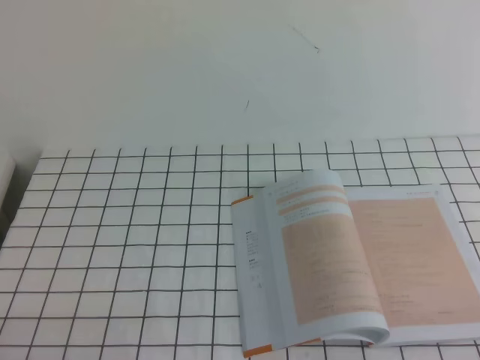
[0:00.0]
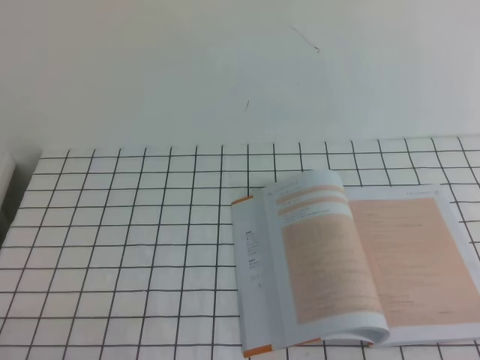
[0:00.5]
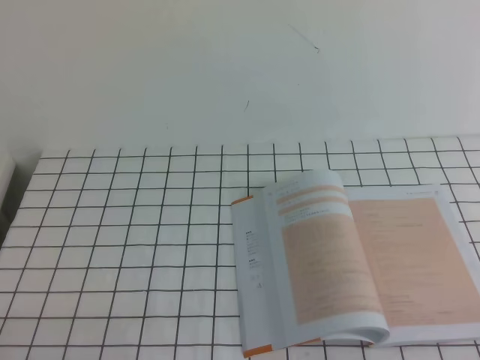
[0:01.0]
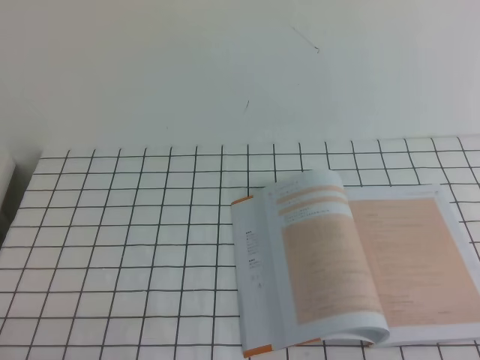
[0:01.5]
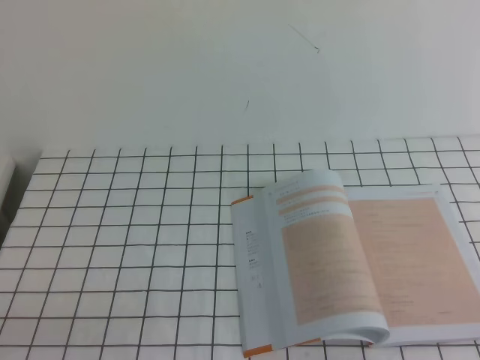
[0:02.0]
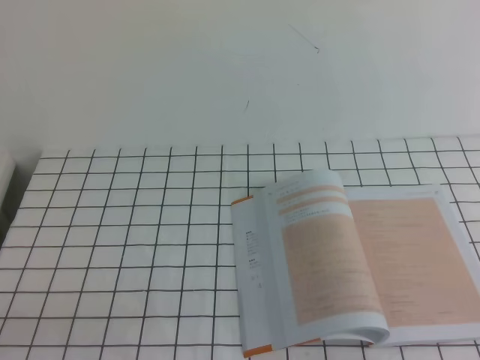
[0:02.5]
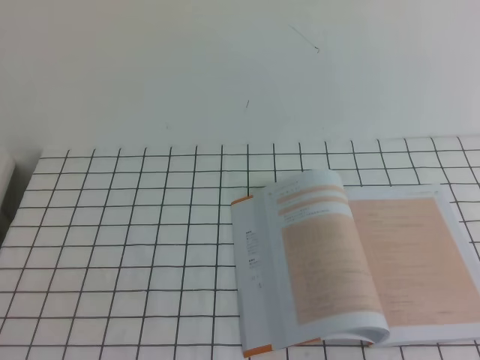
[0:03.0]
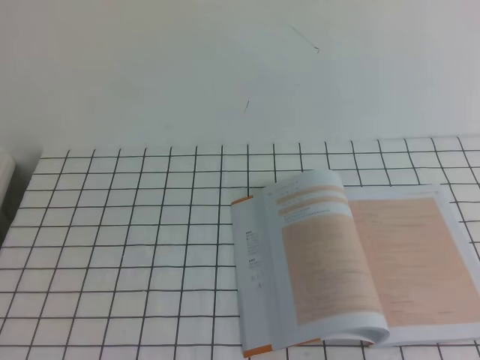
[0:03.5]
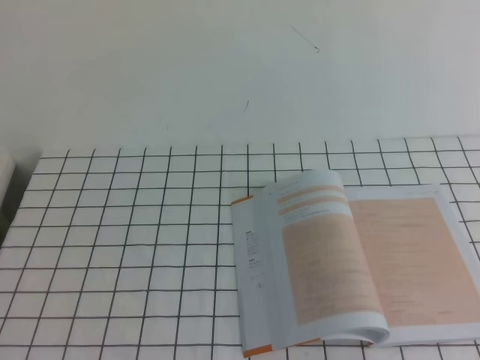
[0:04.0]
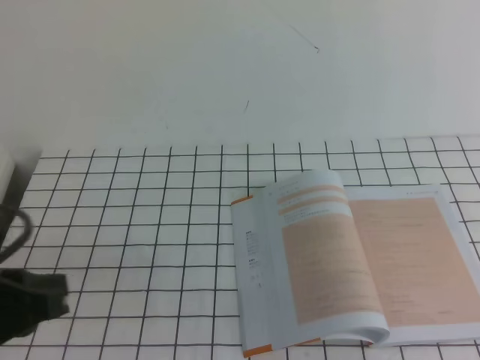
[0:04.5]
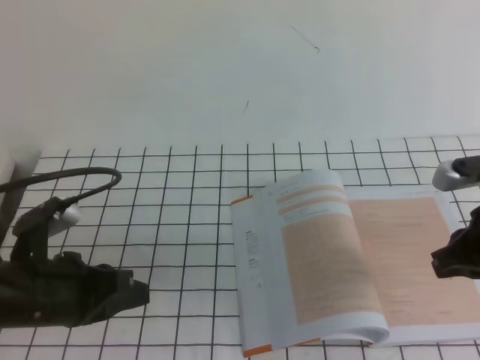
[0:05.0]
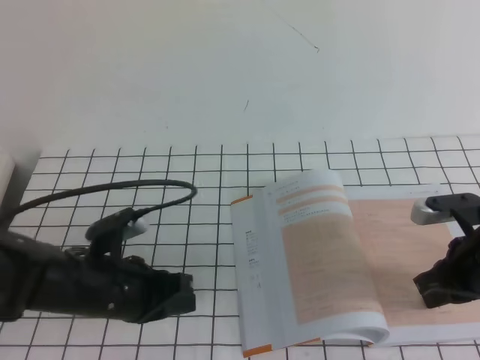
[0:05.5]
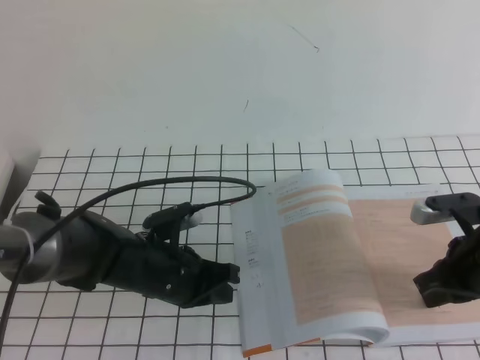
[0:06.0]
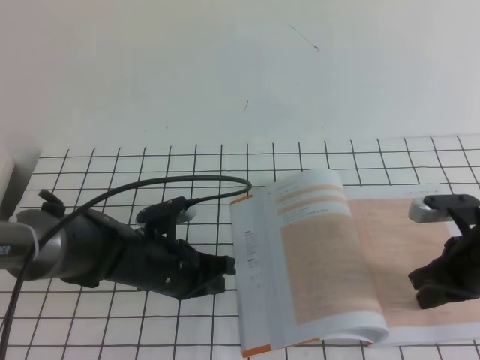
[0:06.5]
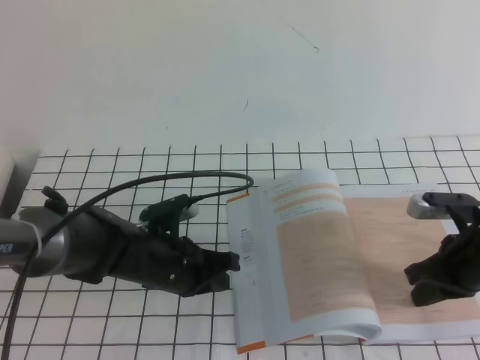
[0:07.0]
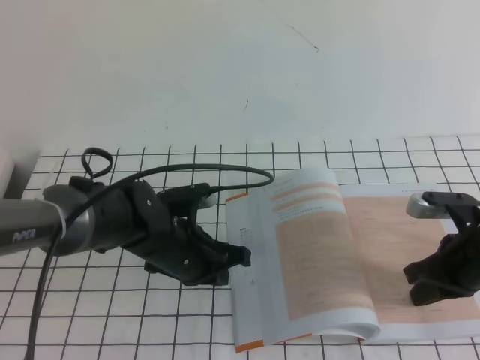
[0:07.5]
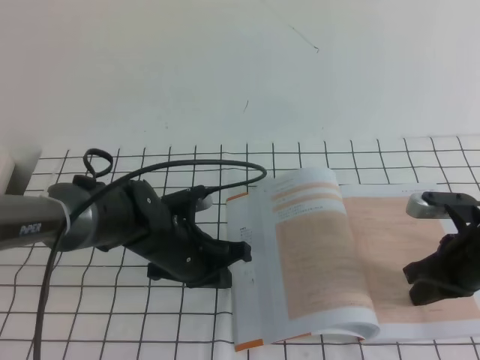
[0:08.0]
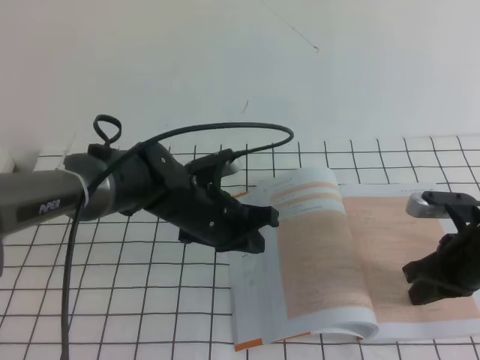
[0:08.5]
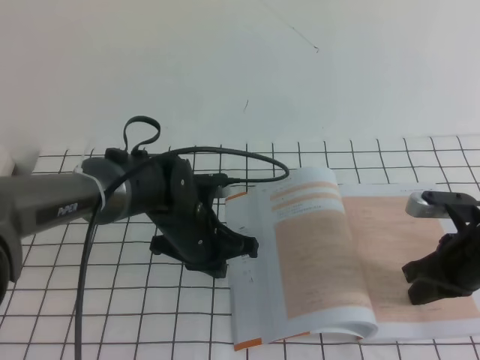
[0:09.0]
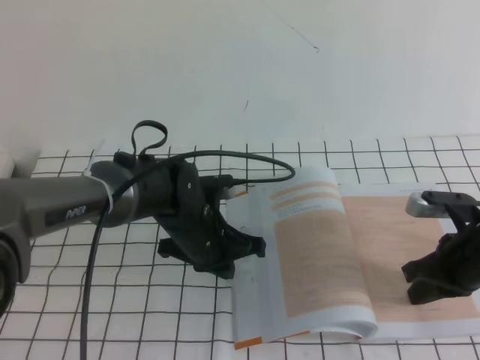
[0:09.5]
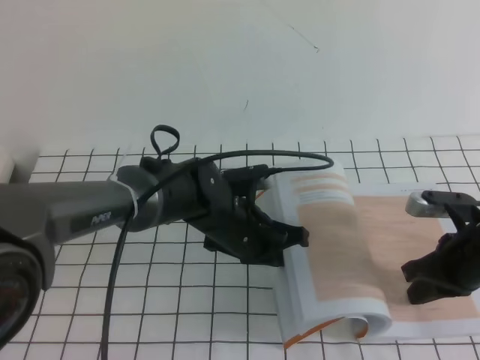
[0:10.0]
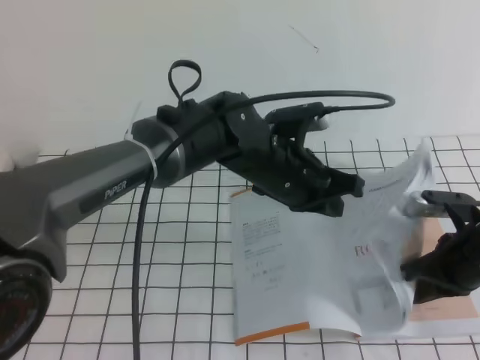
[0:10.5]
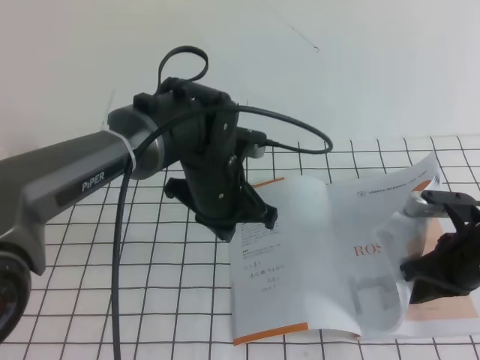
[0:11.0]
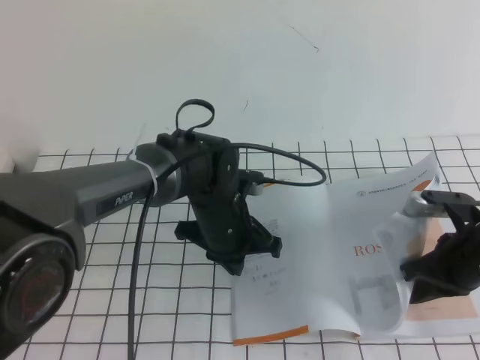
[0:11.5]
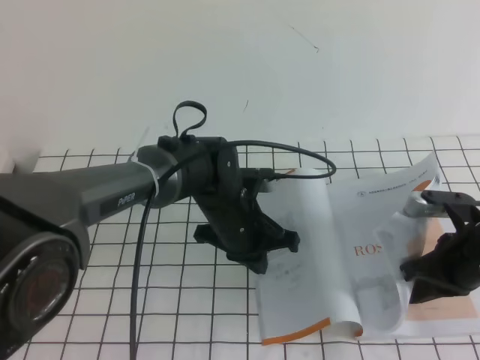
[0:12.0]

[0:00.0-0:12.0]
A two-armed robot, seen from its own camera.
Task of the whole recording: on the white tablecloth, hold the book with one hand and close it with the other.
0:04.0 to 0:06.0: The right gripper travels downward and forward by approximately 35 cm; the left gripper moves downward, forward and to the right, about 35 cm.
0:06.0 to 0:08.0: The grippers make only small movements.
0:08.0 to 0:10.0: The left gripper moves to the right, roughly 5 cm.
0:10.0 to 0:12.0: The left gripper goes upward and returns, about 5 cm each way.

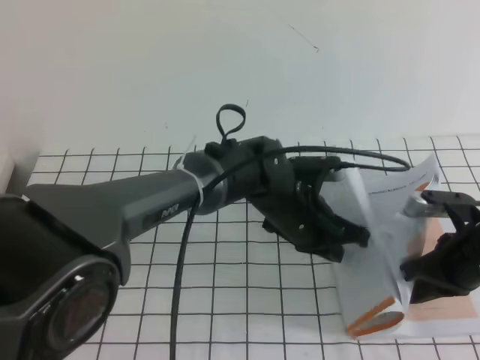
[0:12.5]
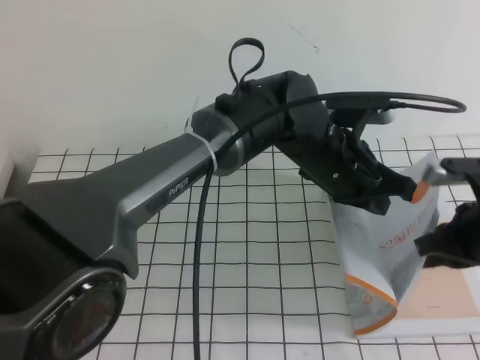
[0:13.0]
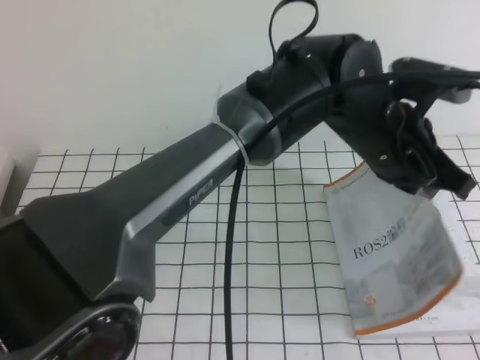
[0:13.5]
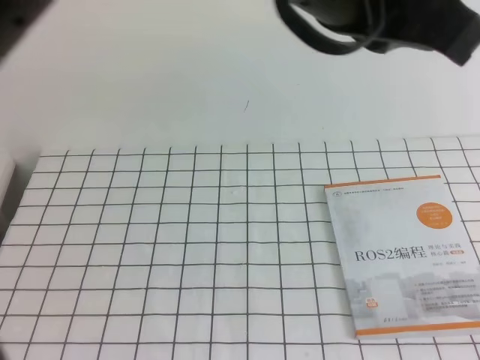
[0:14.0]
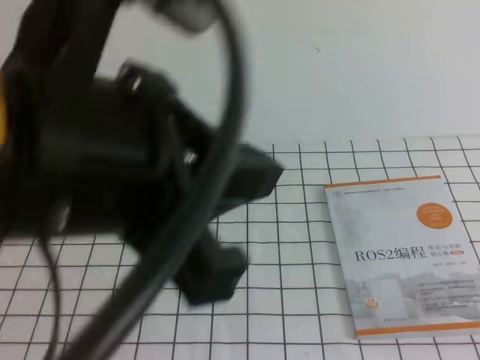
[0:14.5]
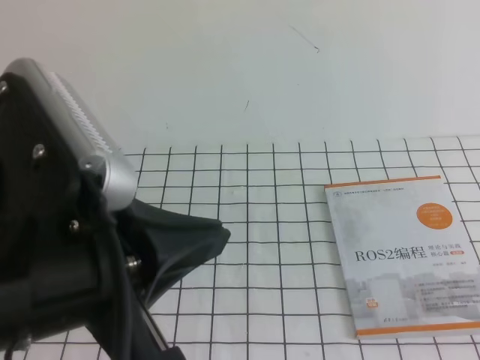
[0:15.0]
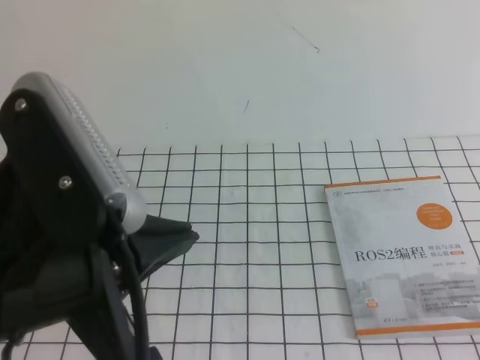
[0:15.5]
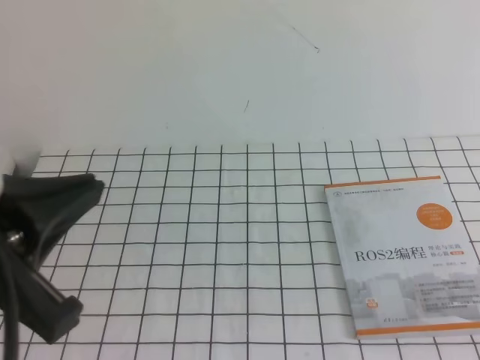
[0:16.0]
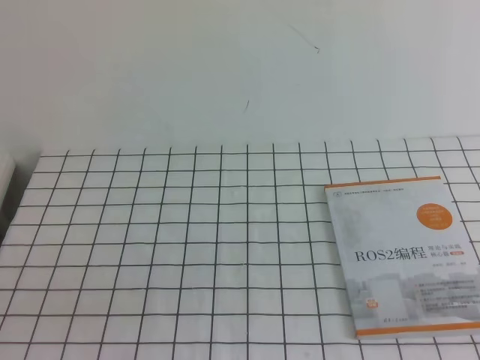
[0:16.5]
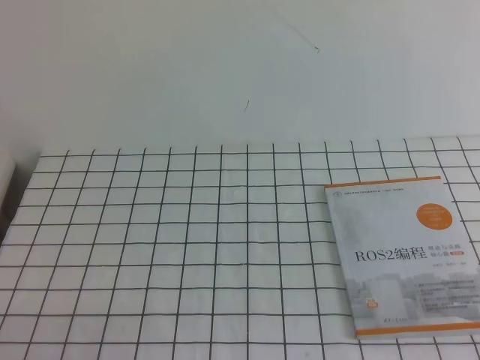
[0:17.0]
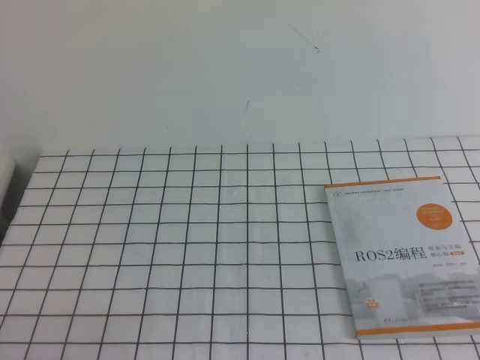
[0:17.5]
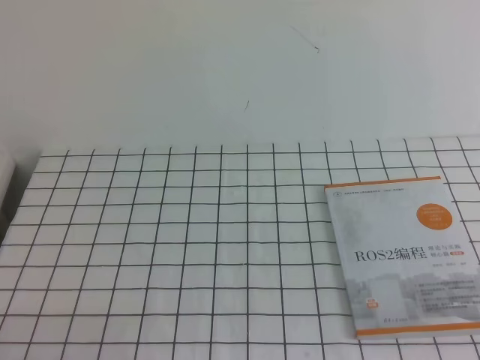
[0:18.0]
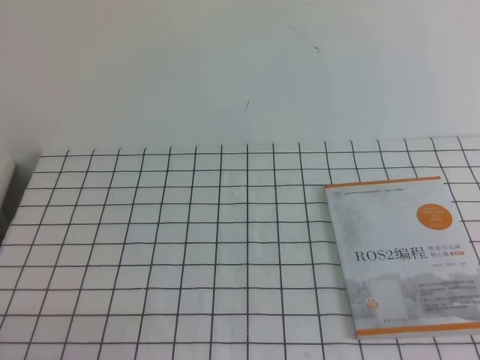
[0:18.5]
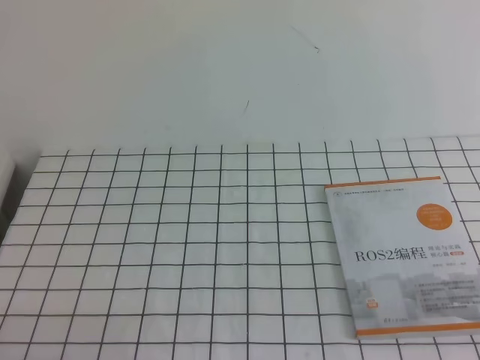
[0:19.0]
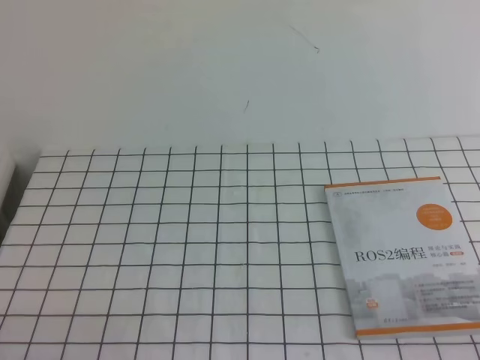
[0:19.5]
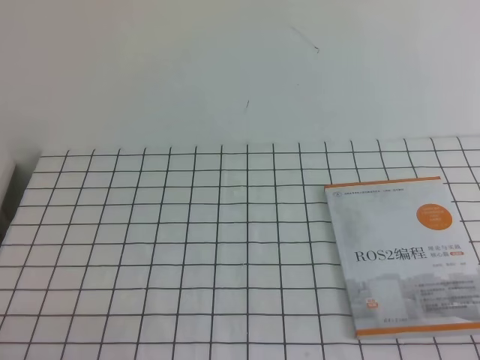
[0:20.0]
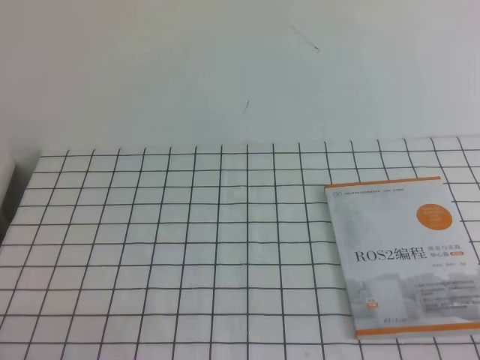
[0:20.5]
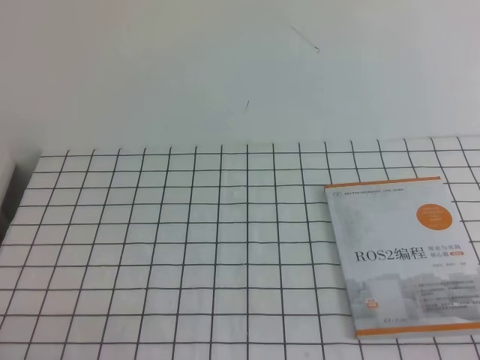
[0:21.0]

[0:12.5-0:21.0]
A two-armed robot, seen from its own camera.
Task of the whole recording: on the white tablecloth, hold the book with one hand and close it with the other.
Step, 0:12.5 to 0:21.0: Close the open book.
0:12.5 to 0:14.5: The right gripper moves backward and upward, about 40 cm. Meanwhile the left gripper shifts roughly 40 cm upward, backward and to the left.
0:14.5 to 0:16.5: The left gripper is displaced downward and to the left by some 25 cm.

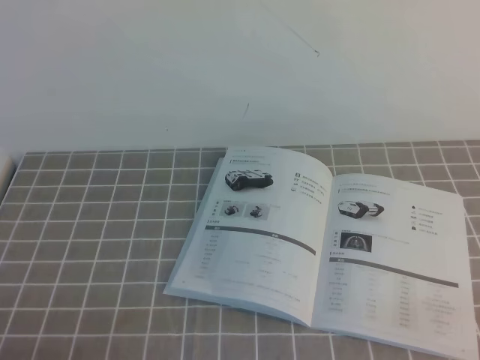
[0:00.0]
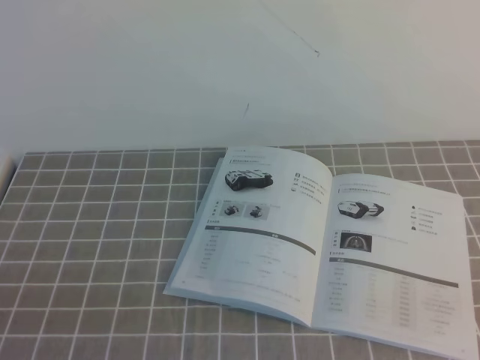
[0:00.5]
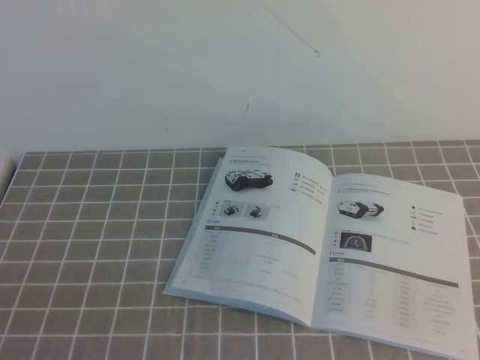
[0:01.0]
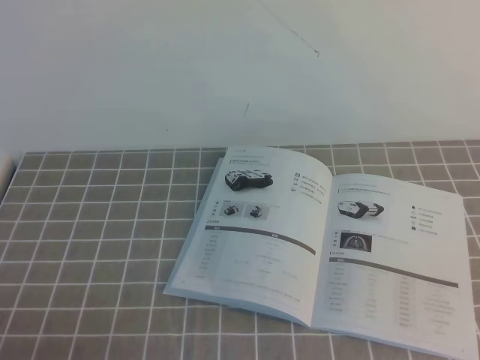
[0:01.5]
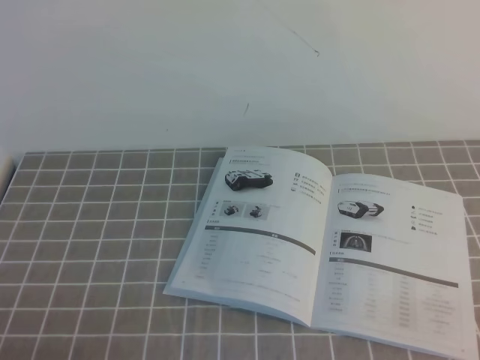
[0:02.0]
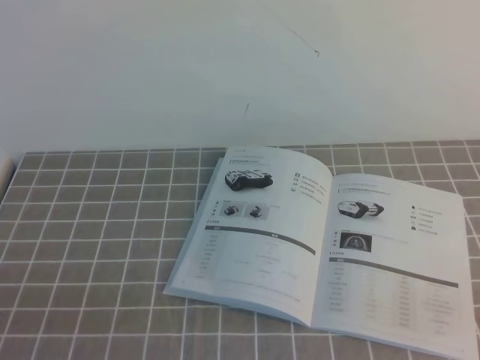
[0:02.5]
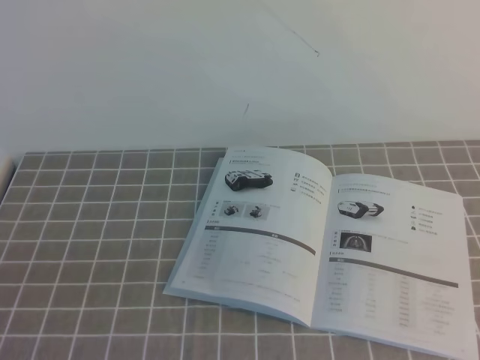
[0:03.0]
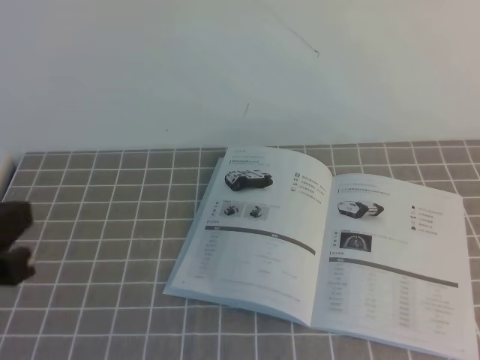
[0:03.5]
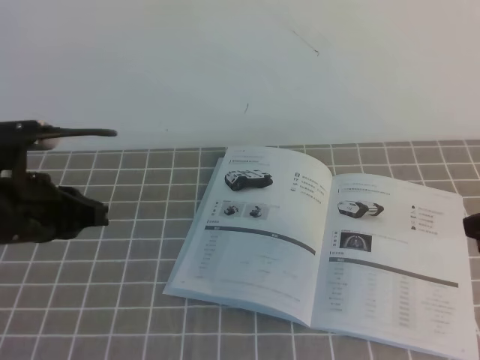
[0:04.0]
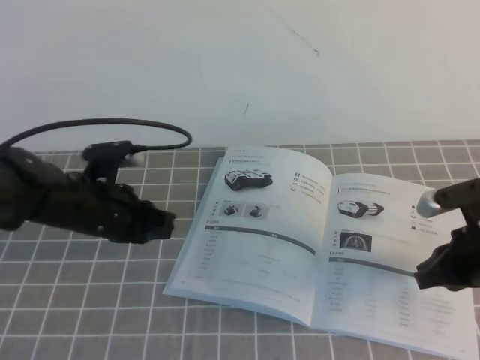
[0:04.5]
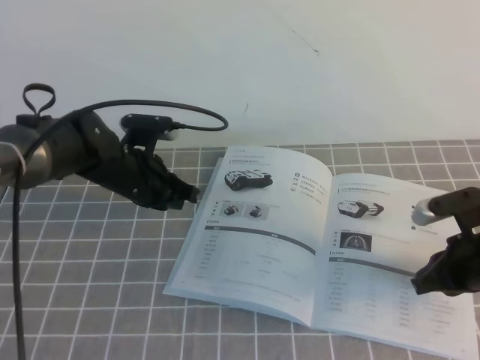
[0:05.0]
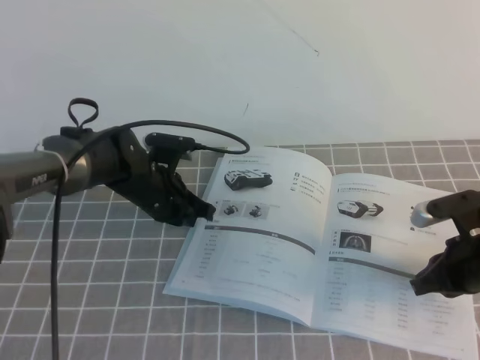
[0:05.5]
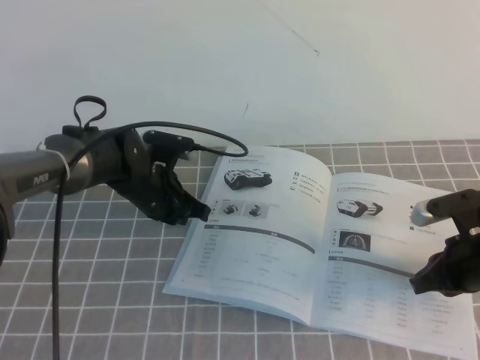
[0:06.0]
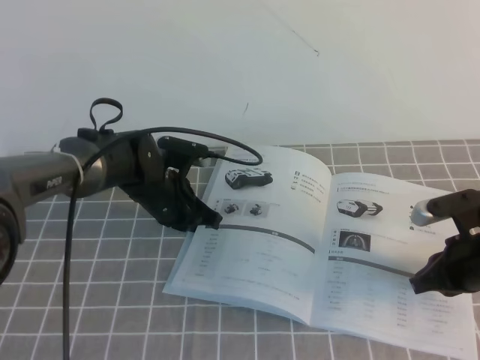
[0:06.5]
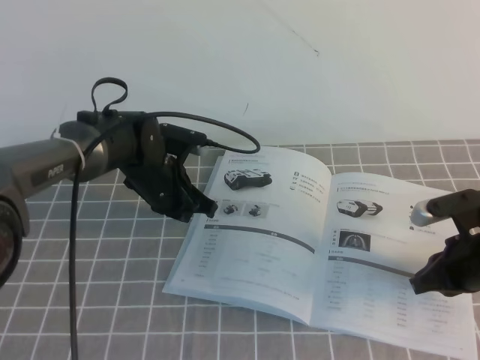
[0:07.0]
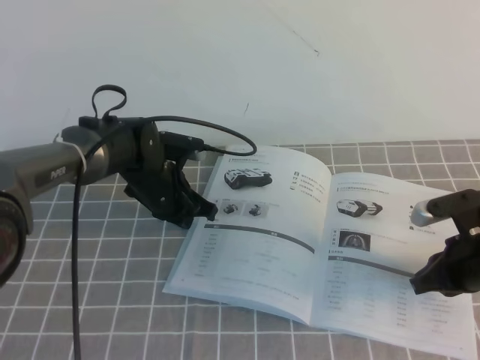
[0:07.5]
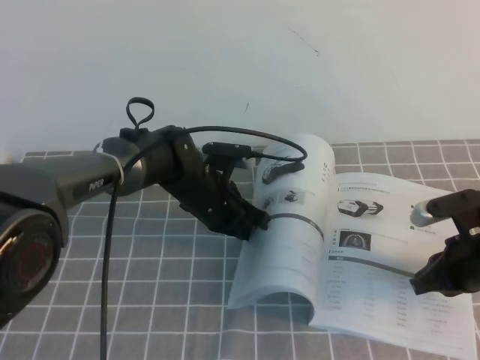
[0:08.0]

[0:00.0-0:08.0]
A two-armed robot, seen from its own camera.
Task of the whole recording: on the grey tablecloth, hold the book with one hand and close it with the other.
0:02.0 to 0:04.0: The right gripper heads forward, covering roughly 20 cm. The left gripper shifts some 20 cm forward and upward.
0:04.0 to 0:06.0: The left gripper travels forward, downward and to the right by about 20 cm; the right gripper goes roughly 15 cm downward.
0:06.0 to 0:08.0: The left gripper moves to the right, roughly 5 cm.
